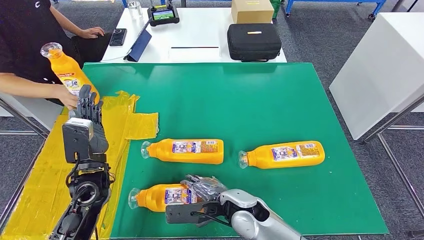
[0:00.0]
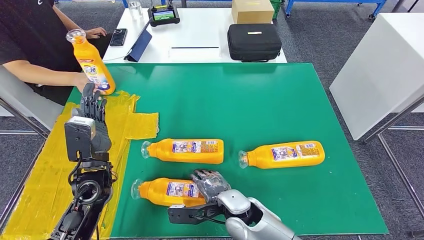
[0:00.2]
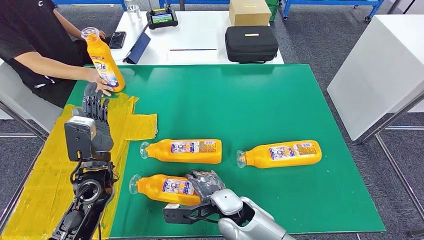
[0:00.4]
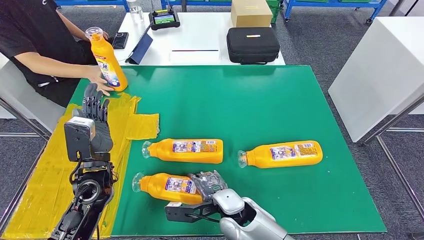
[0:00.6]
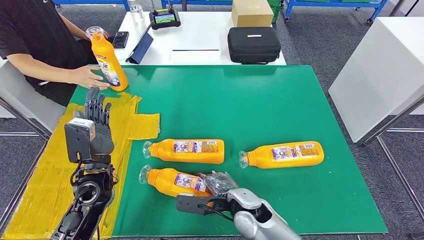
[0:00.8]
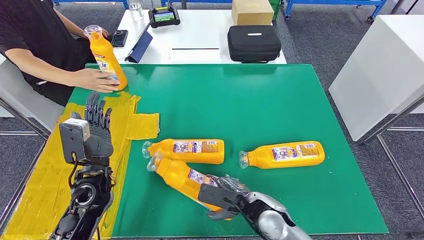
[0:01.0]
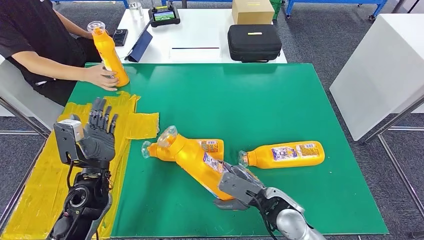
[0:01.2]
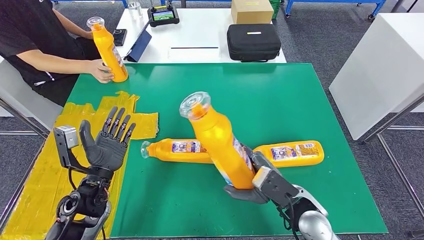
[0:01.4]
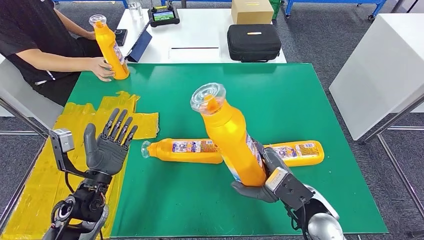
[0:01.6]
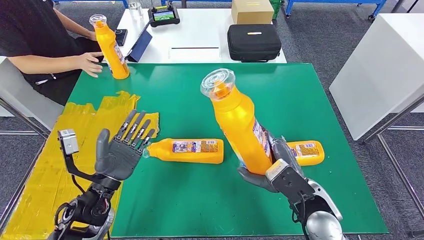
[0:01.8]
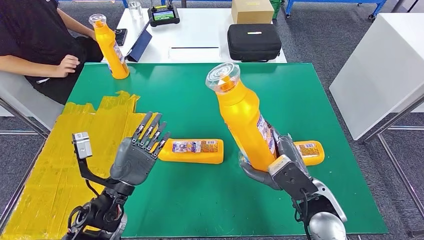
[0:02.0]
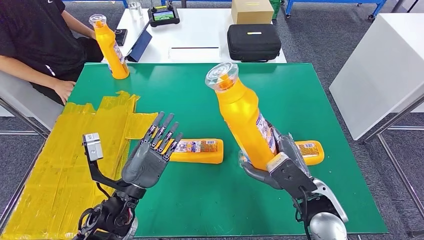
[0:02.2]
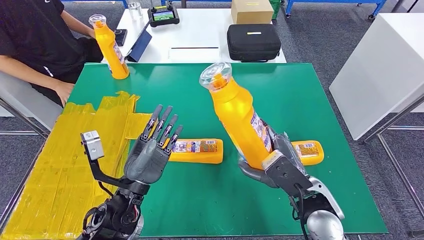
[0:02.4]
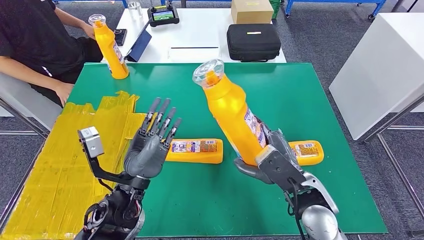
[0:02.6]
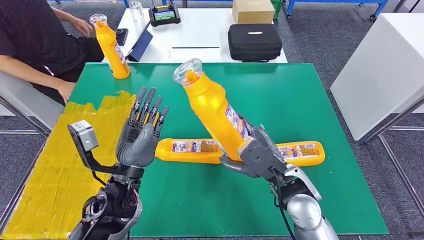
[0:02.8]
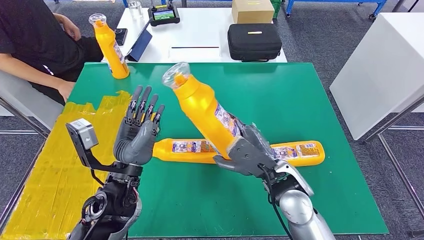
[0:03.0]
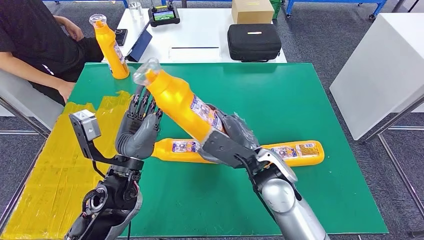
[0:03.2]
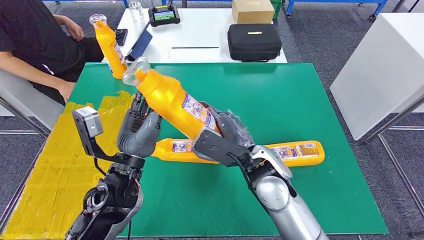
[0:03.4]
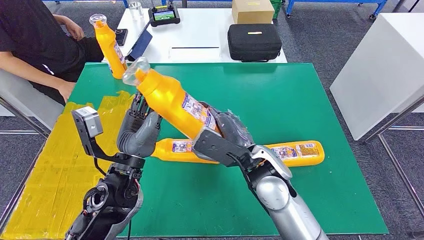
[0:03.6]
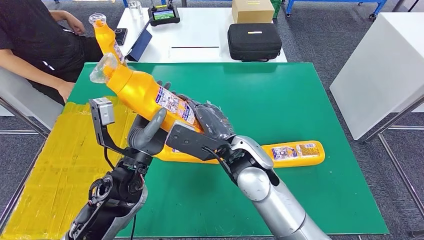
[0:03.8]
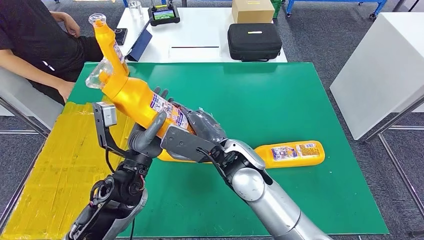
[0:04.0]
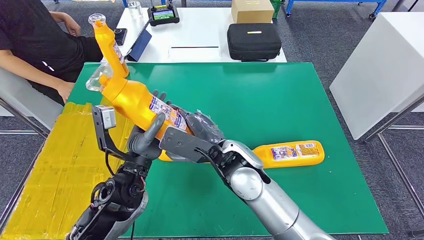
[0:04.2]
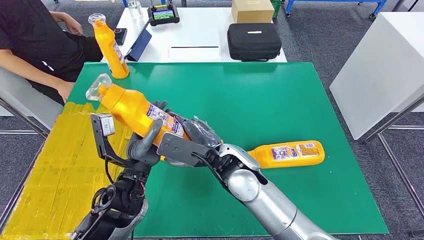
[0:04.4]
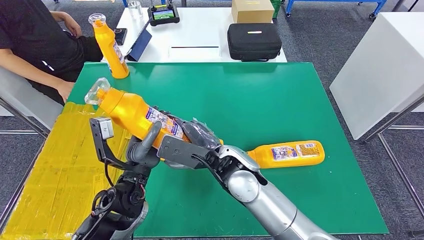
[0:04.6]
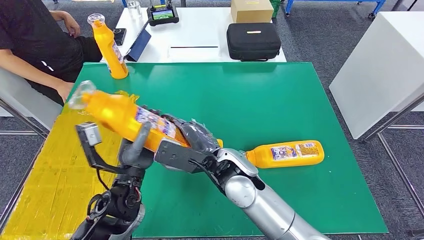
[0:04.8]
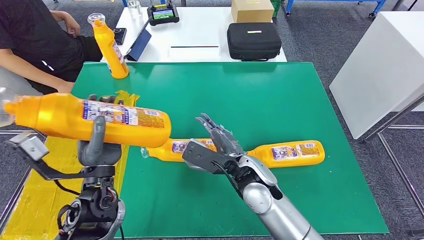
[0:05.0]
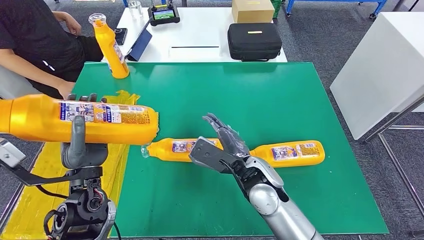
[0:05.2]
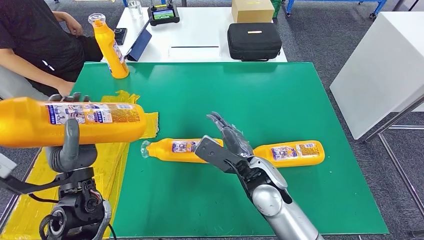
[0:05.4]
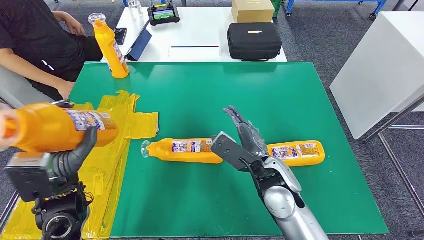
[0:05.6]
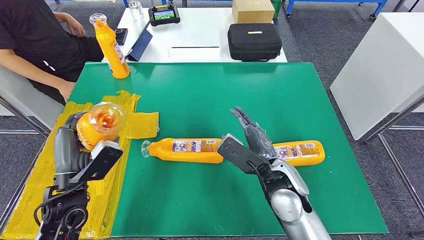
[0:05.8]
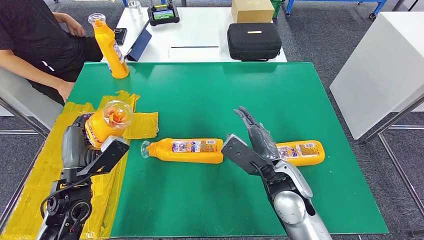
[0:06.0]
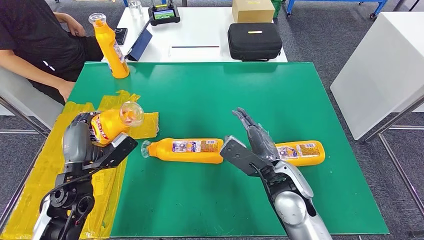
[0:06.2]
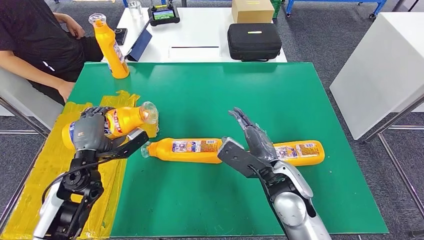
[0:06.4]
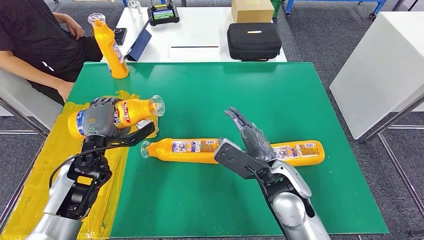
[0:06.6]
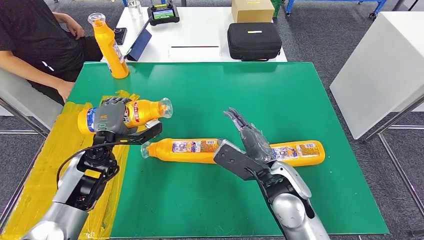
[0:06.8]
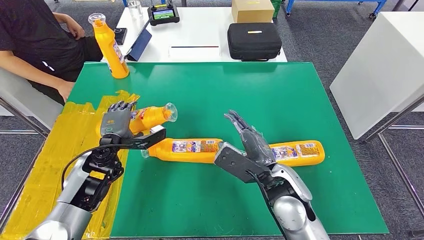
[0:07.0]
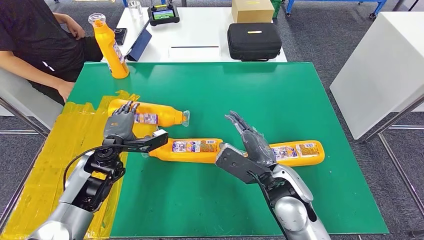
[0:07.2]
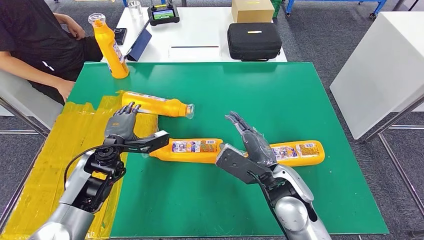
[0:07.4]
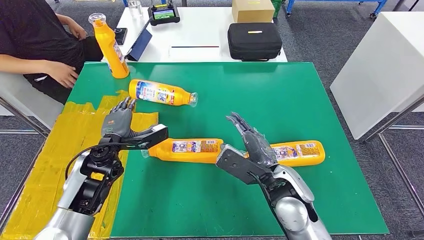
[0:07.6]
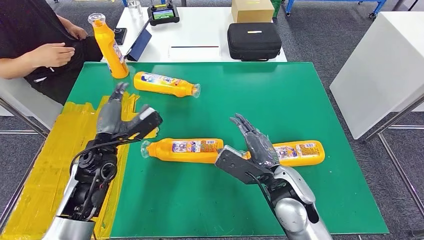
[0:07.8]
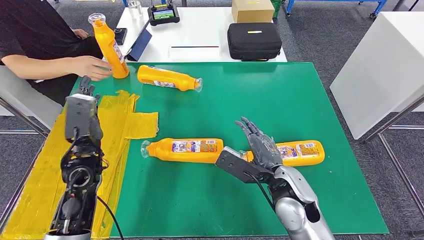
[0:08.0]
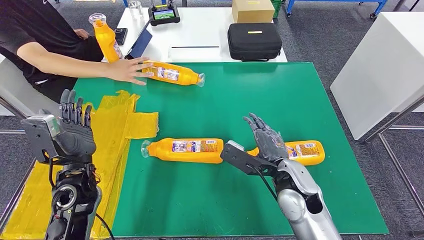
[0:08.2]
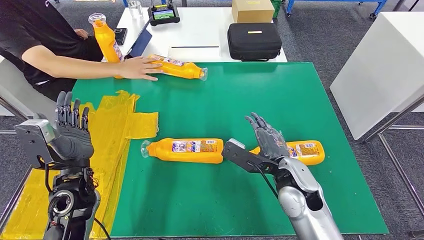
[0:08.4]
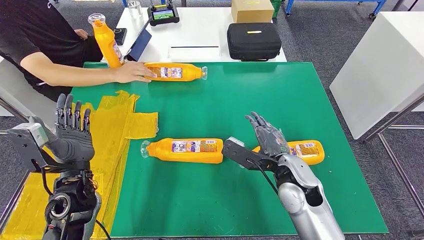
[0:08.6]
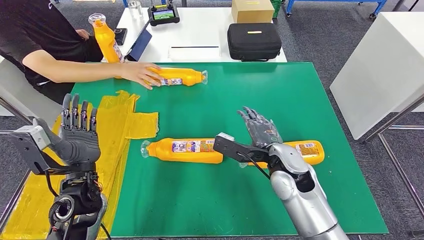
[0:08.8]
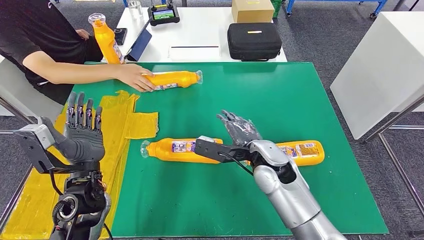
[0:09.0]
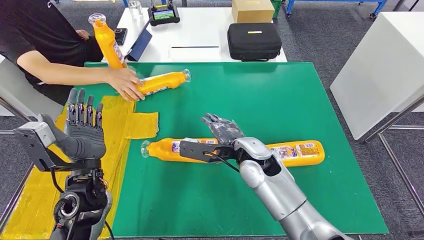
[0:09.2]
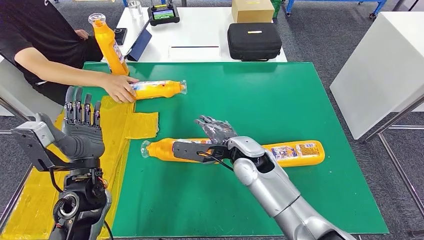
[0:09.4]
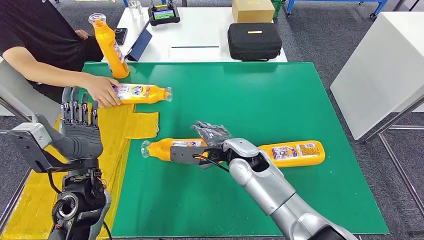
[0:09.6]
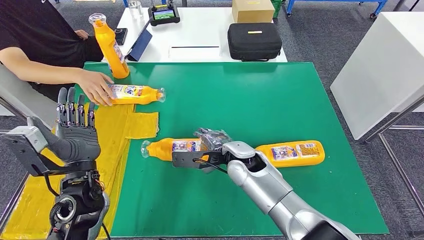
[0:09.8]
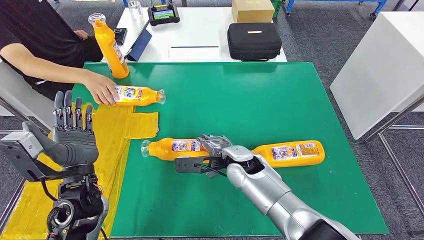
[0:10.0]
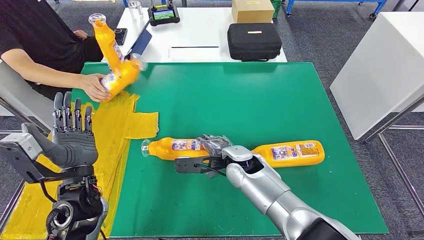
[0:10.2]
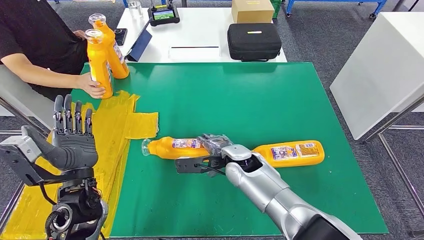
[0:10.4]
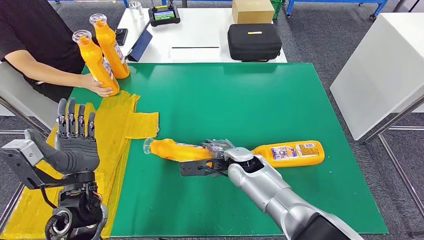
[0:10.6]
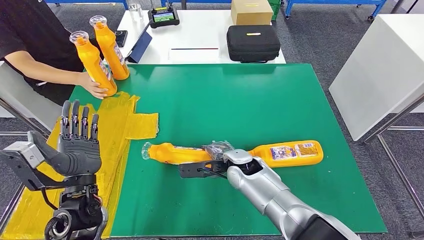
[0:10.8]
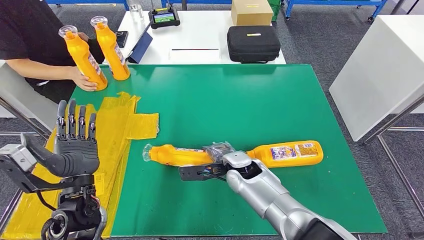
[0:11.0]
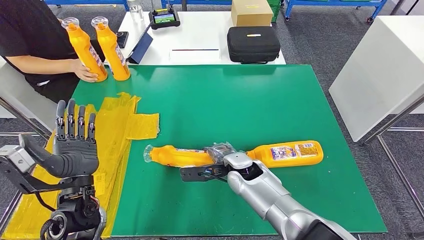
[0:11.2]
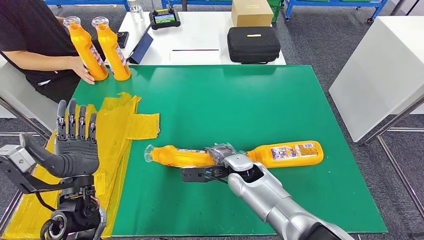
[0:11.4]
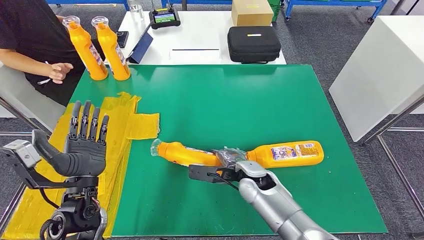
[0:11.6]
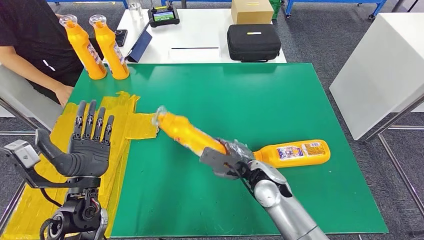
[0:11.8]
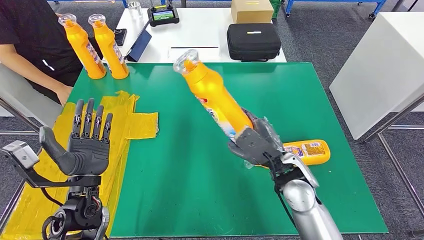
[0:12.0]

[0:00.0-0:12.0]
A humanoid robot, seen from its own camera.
Step, 0:00.0 to 0:02.4: Pick up the fast-moving consumer goods bottle from the table.
Step, 0:02.6 to 0:06.8: Flip the fast-moving consumer goods bottle to the front side.
0:03.0 to 0:04.4: The right hand travels to the left by about 10 cm.
0:06.0 to 0:07.6: The left hand heads forward, covering some 10 cm.
0:09.0 to 0:10.4: The right hand heads to the left and downward, covering approximately 10 cm.

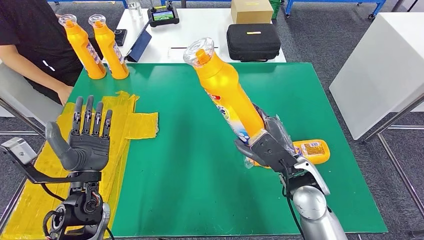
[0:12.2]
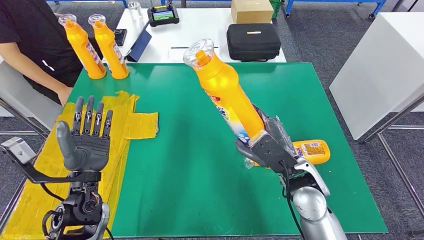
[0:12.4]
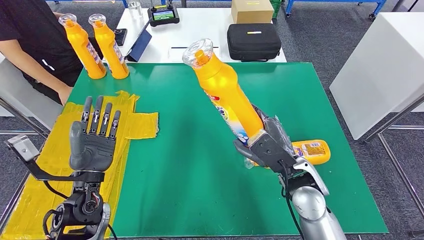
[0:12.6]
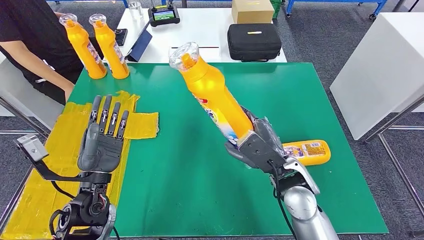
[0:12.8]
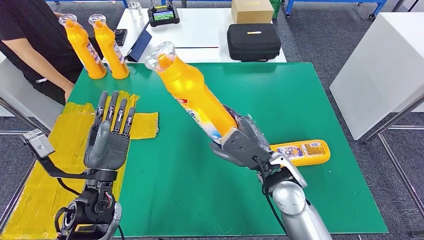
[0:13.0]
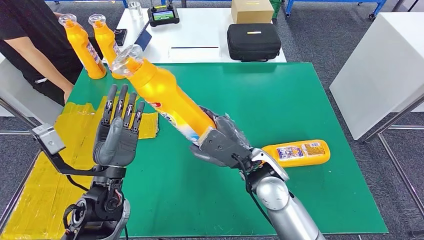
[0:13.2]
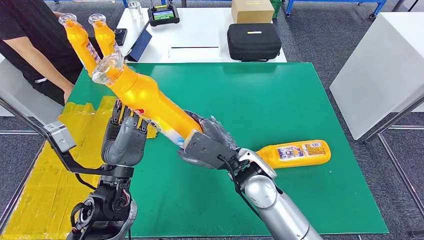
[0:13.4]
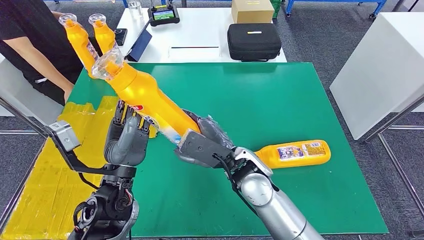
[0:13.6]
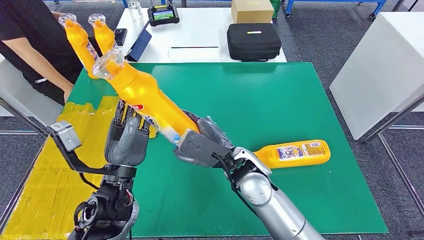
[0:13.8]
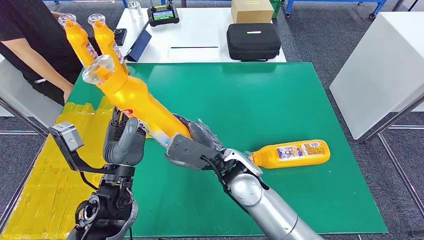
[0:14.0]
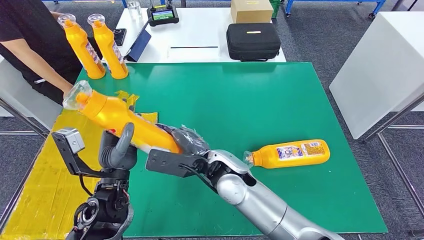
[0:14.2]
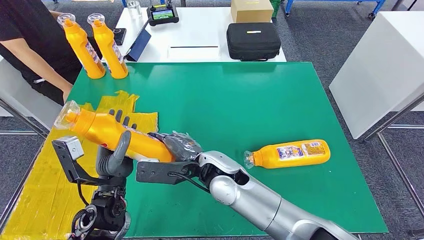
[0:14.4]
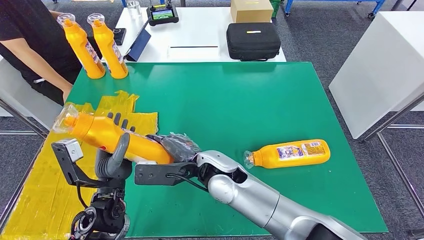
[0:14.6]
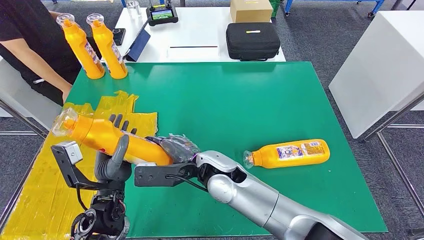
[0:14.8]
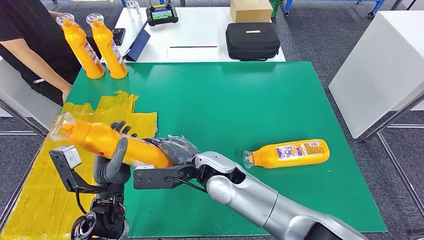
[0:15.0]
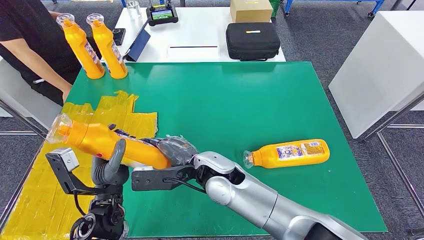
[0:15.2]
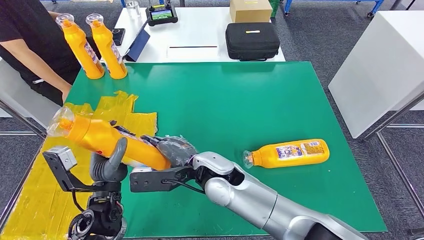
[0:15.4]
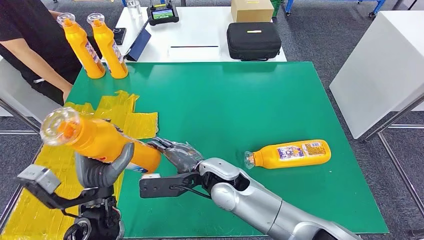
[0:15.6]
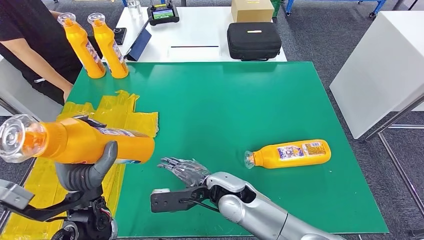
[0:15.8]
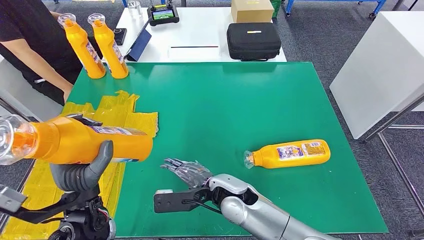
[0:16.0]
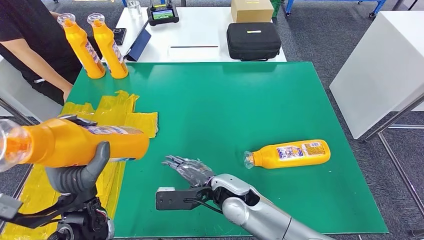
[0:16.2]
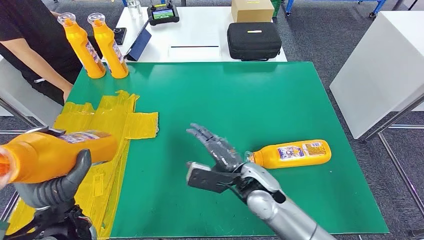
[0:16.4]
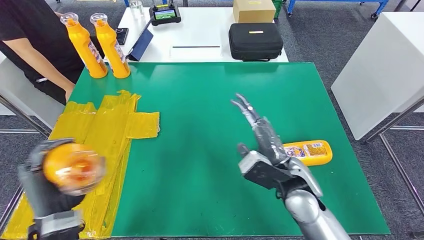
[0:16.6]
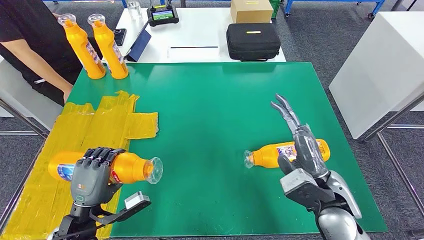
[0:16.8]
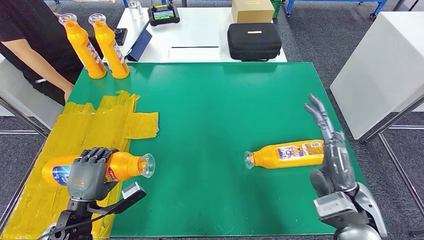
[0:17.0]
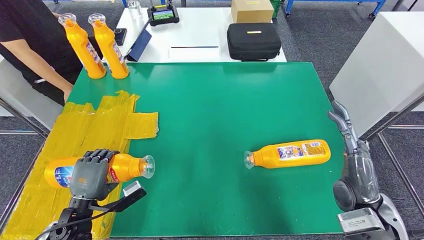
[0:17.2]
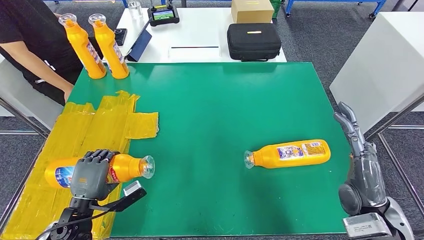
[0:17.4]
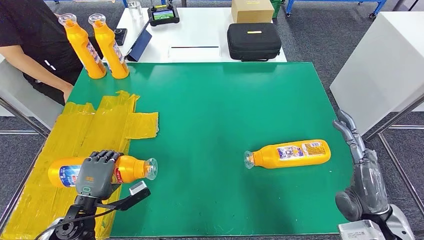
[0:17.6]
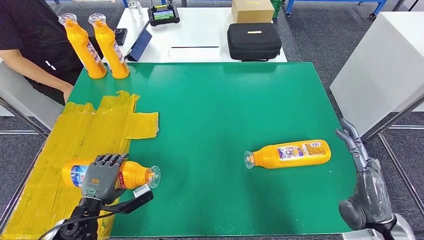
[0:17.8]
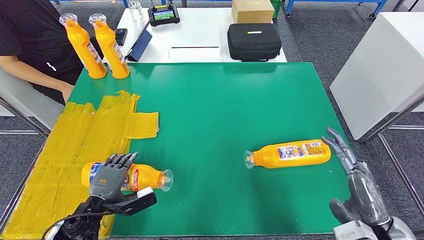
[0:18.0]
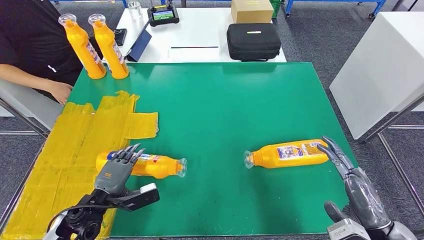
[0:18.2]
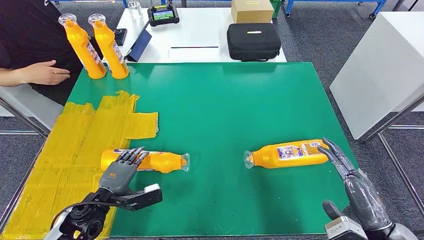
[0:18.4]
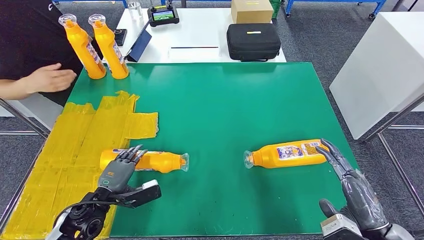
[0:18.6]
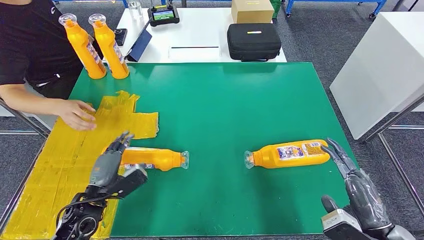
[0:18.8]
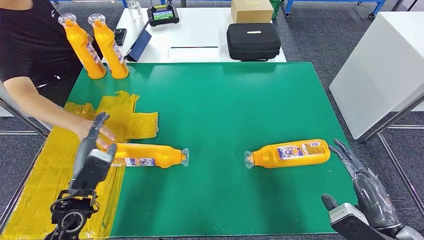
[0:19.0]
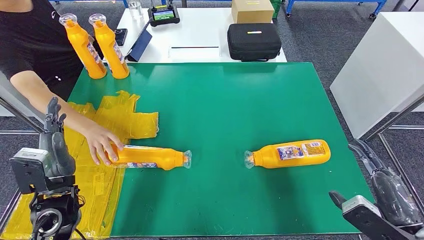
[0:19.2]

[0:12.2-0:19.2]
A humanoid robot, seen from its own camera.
Step, 0:13.6 to 0:18.0: Flip the fast-moving consumer goods bottle to the front side.
